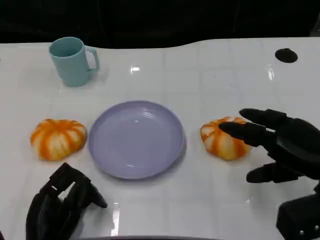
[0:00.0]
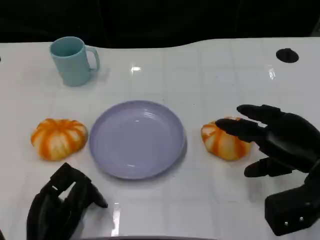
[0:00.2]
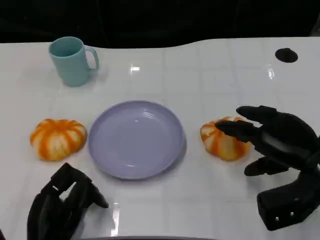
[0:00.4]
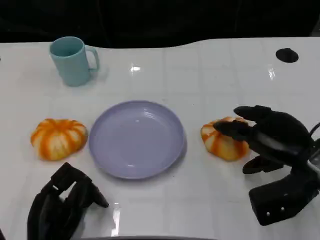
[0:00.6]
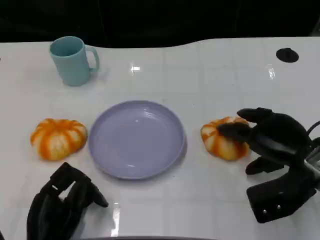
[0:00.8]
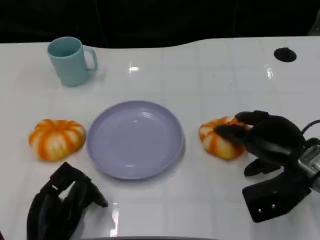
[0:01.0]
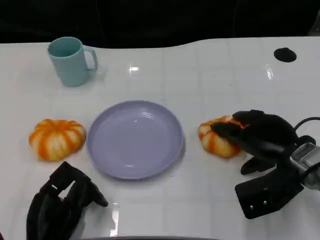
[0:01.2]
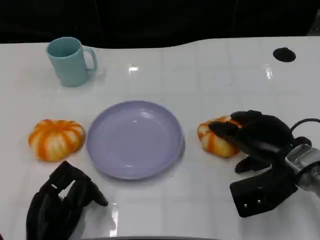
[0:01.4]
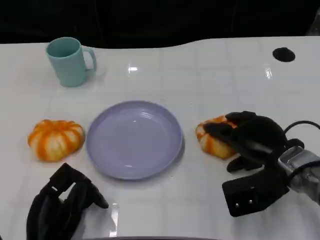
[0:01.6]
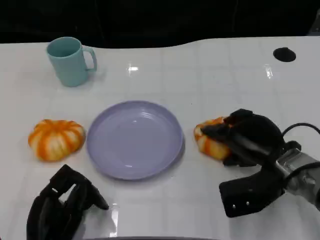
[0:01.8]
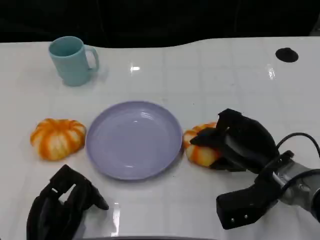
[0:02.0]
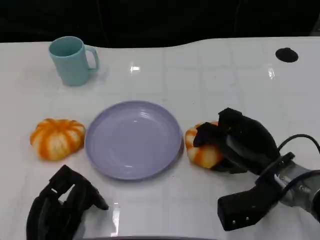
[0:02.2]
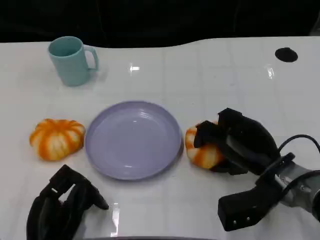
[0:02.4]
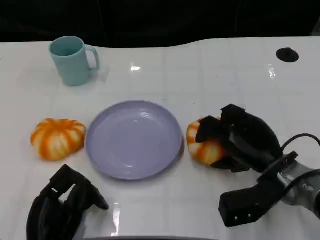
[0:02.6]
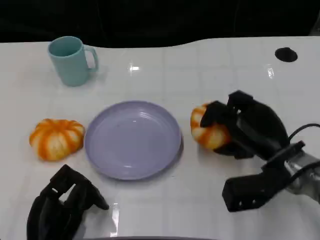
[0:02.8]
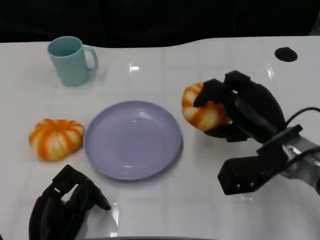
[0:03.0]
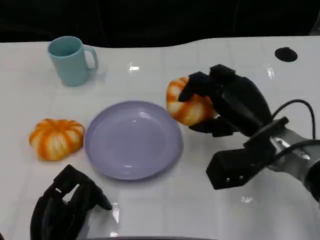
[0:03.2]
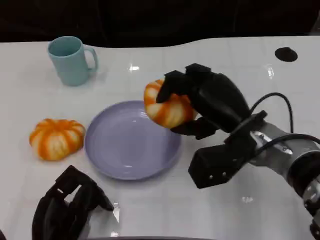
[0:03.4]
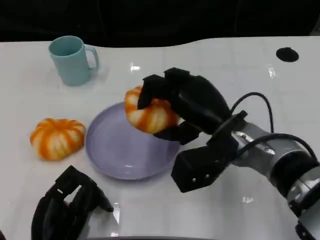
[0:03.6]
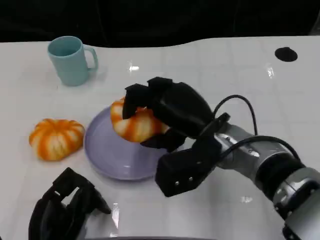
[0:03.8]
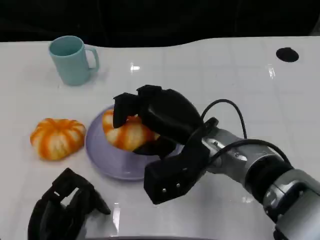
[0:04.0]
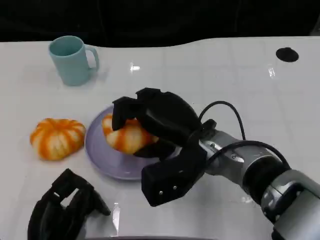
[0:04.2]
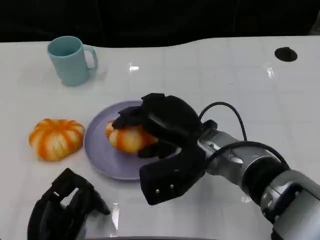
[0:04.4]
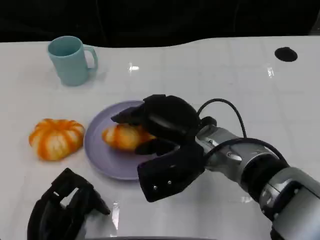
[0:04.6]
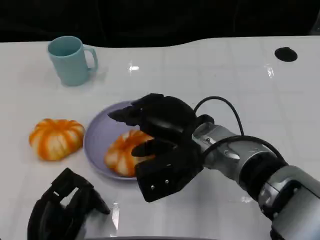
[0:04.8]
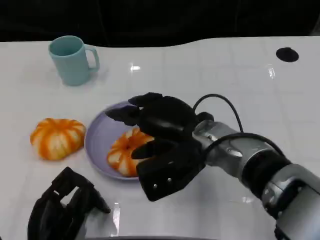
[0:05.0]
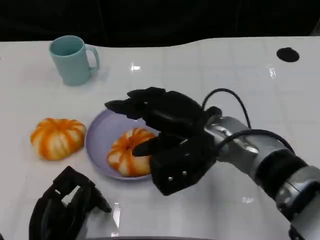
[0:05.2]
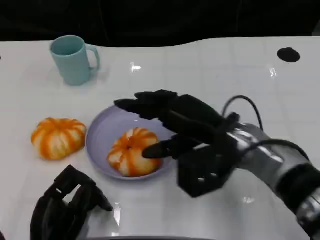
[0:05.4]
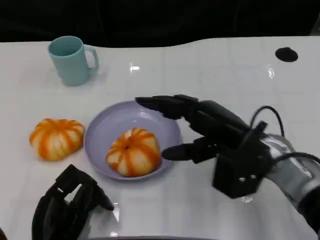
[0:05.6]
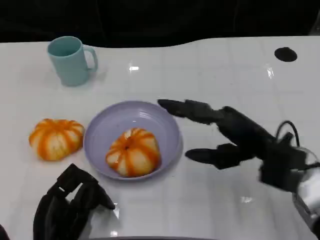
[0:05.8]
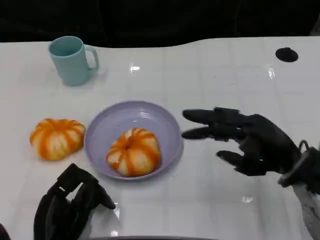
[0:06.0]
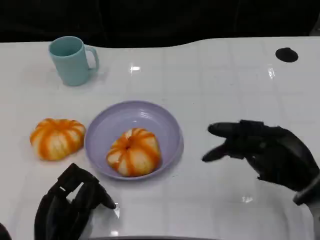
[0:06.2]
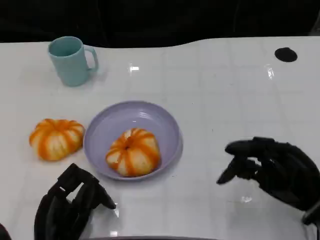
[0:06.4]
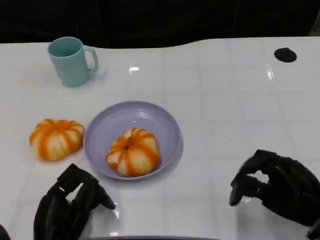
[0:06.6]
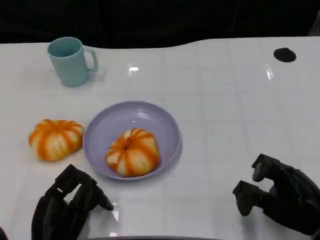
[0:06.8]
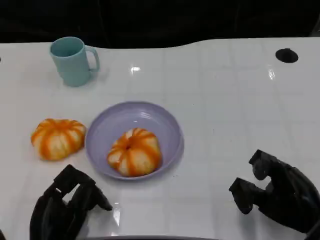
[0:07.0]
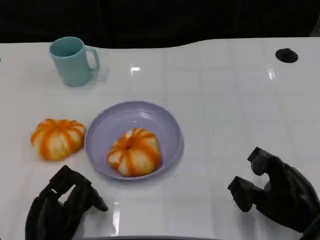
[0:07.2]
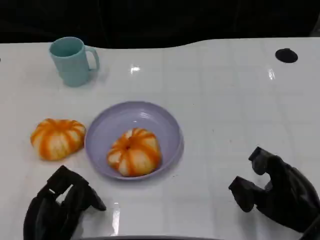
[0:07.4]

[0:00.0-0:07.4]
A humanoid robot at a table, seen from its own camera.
Task of the whole recording: Grasp the bread from the table and place it into the plate.
0.0 to 1.4 s: The right hand is displaced to the left by about 5 cm.
3.0 to 4.4 s: The right hand is displaced to the left by approximately 10 cm.
4.4 to 6.0 s: The right hand goes about 15 cm to the right.
6.0 to 7.4 s: The right hand shifts roughly 10 cm backward and downward.

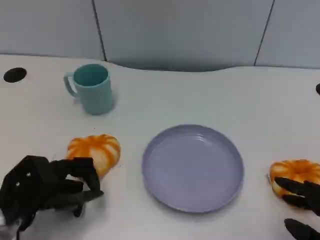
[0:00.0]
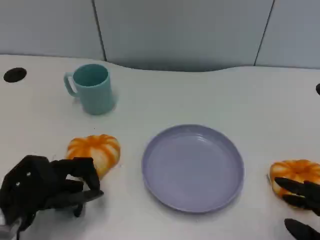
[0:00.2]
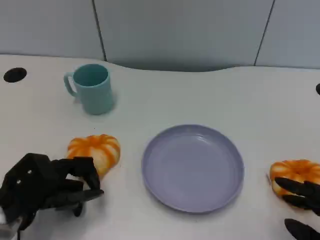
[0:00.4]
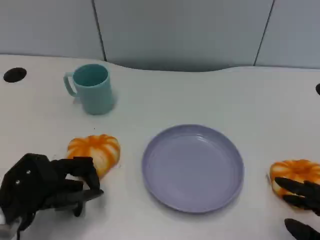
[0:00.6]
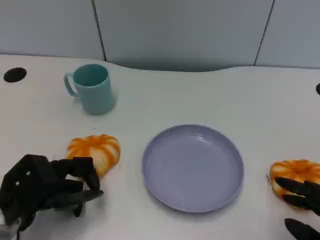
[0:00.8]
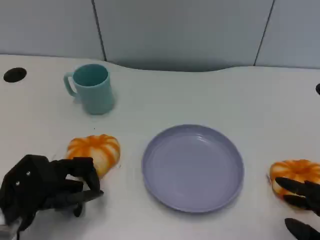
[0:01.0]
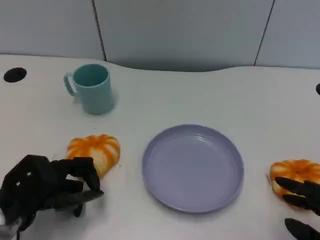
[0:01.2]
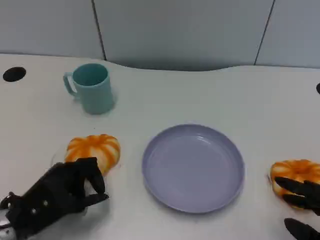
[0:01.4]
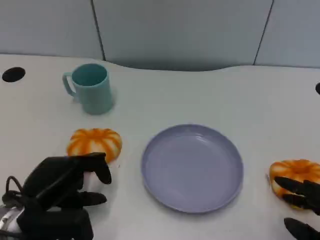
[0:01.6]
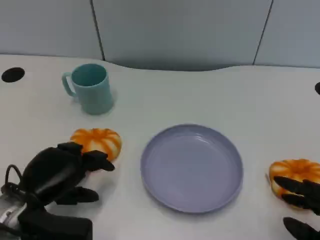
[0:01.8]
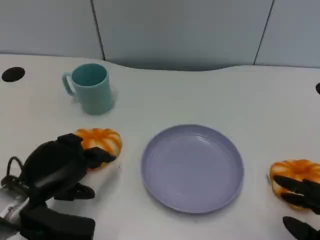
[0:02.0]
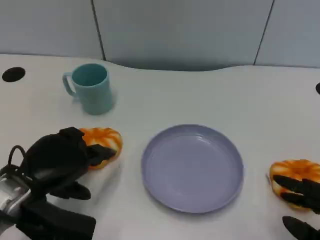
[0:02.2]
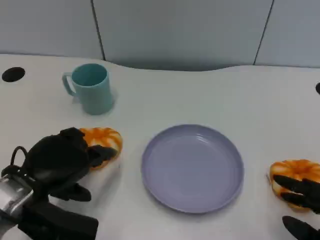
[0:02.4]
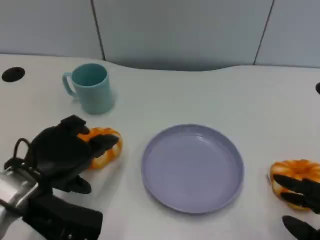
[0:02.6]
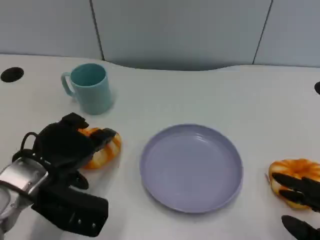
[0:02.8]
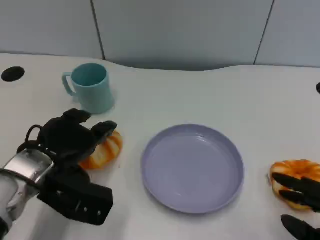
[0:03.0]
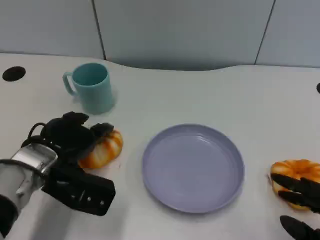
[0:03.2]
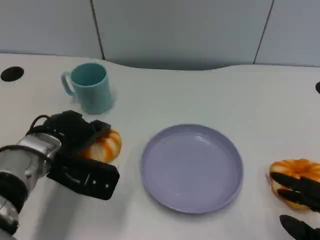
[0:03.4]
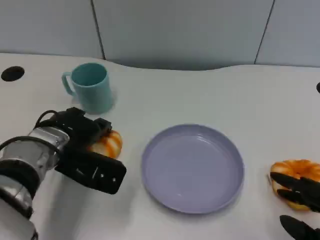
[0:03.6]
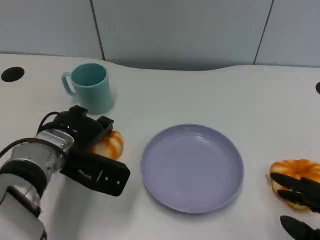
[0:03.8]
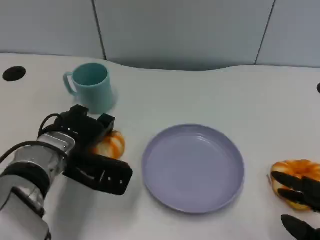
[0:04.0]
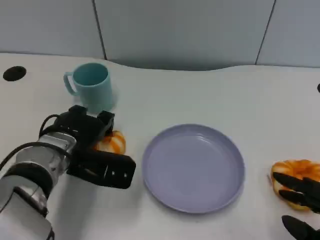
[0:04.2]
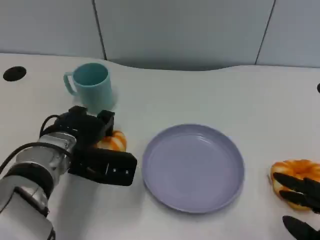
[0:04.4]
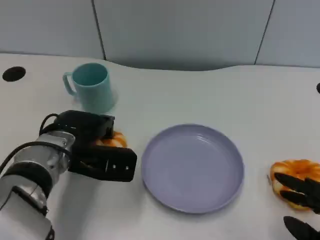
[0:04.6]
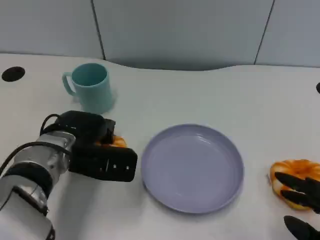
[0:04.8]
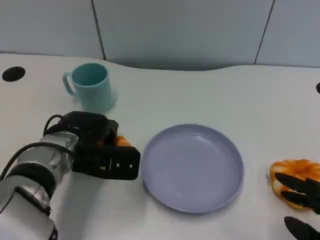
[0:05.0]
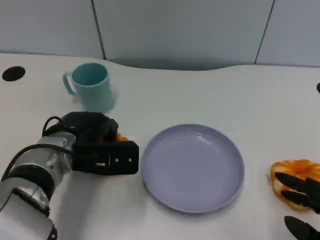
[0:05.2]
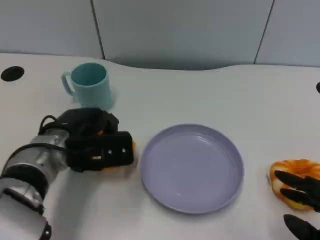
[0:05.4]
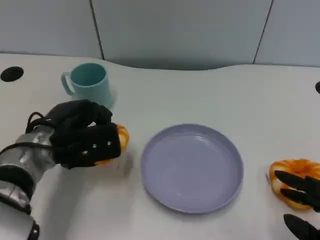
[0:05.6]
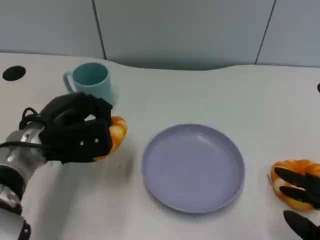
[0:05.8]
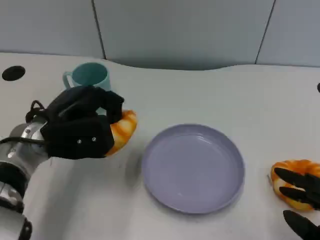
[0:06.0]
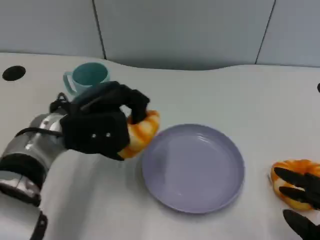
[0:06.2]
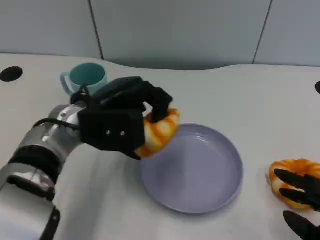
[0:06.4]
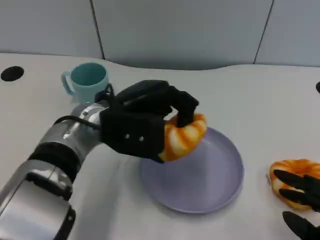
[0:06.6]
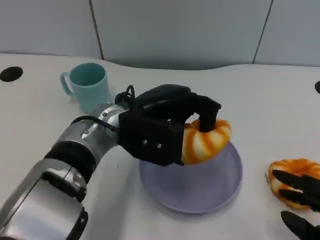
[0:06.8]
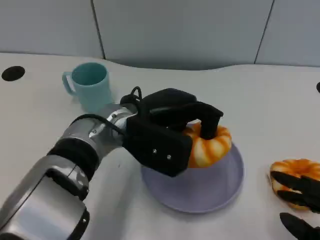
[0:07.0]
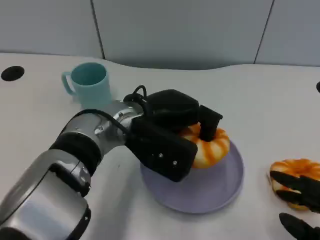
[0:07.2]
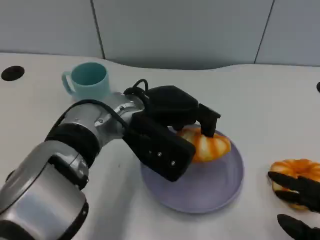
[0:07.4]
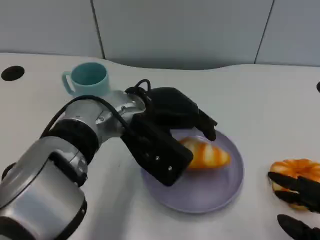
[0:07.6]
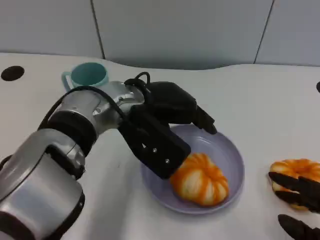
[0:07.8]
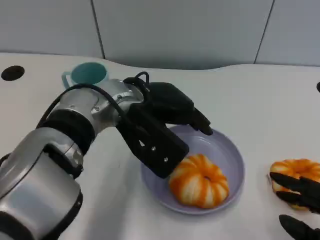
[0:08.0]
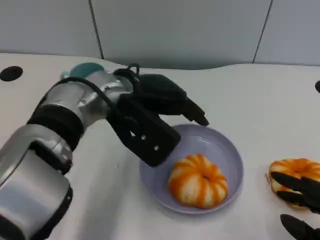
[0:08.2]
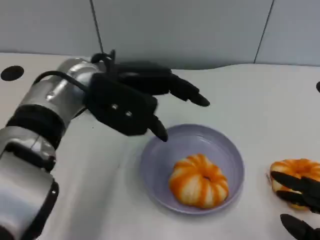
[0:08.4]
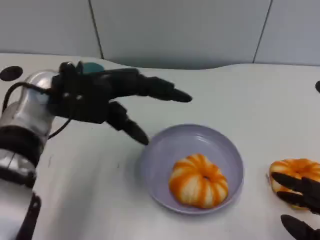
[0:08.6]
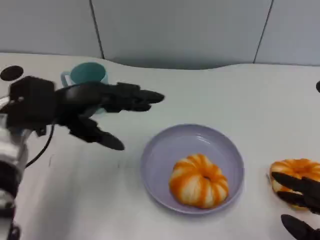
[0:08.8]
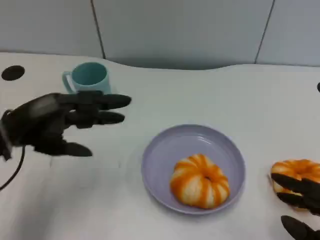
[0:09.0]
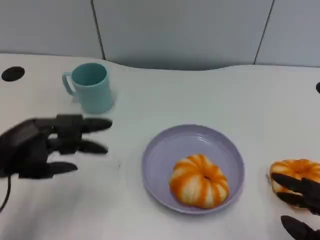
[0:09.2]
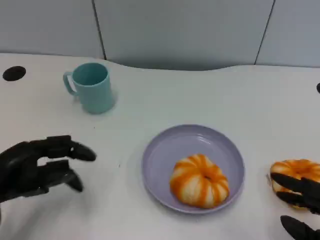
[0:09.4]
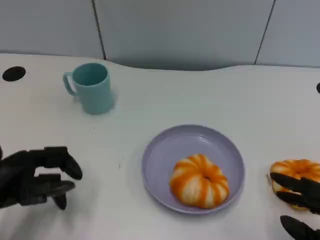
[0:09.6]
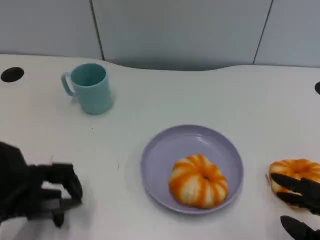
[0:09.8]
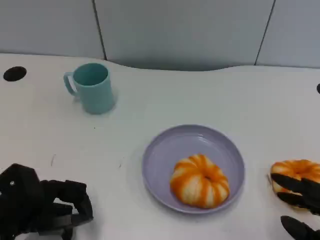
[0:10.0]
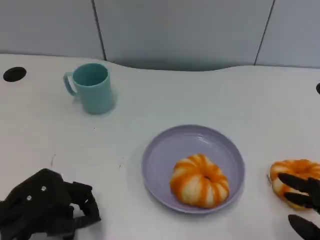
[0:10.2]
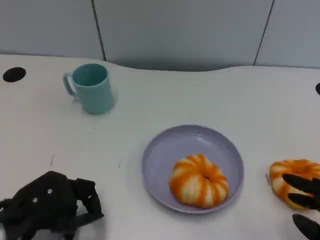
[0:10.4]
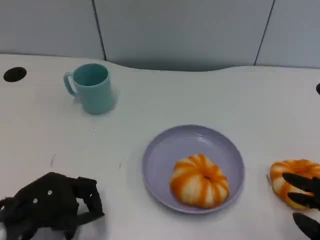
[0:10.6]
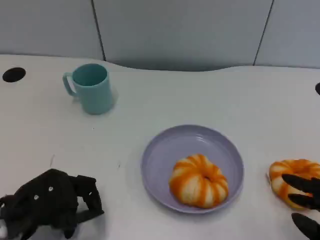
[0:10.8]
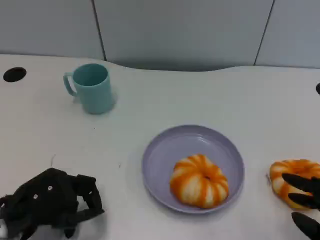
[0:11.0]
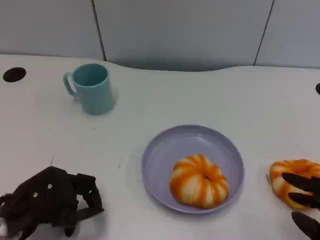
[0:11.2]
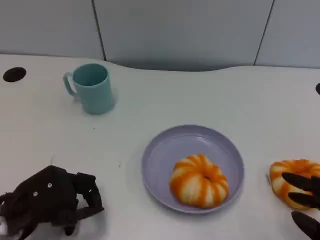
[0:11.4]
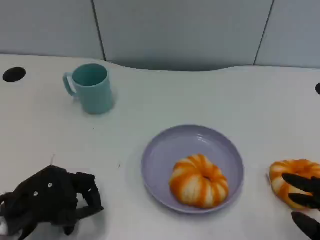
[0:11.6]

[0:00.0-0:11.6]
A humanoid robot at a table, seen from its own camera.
Task of the whole recording: Grasp the bread from the table and place it into the plate.
1.4 to 2.8 s: The left hand goes about 5 cm upward.
2.8 to 4.4 s: The left hand is displaced forward by approximately 5 cm.
5.8 to 7.2 s: The left hand heads to the right, covering roughly 15 cm.
7.2 to 8.8 s: The left hand shifts some 15 cm to the left.
8.8 to 10.2 s: The left hand goes approximately 15 cm backward and downward.
10.2 to 11.6 s: There are only small adjustments of the hands.

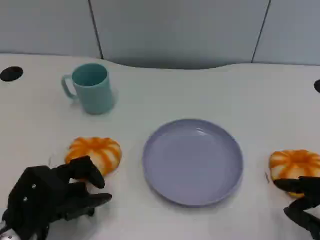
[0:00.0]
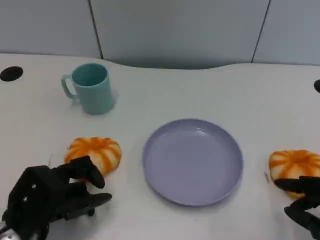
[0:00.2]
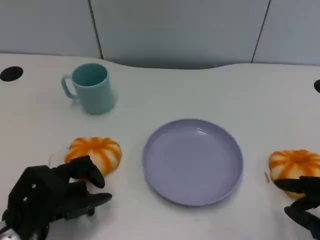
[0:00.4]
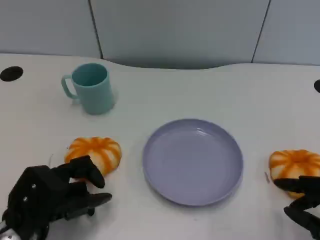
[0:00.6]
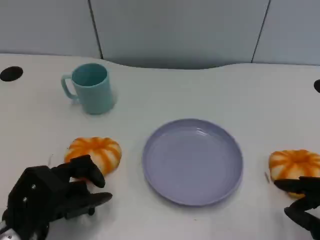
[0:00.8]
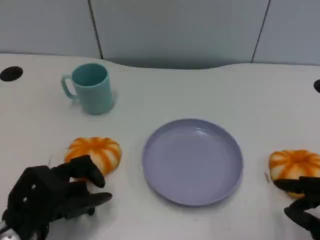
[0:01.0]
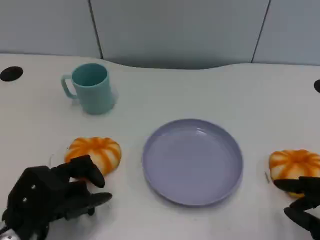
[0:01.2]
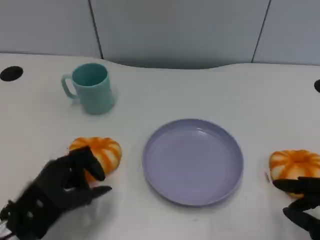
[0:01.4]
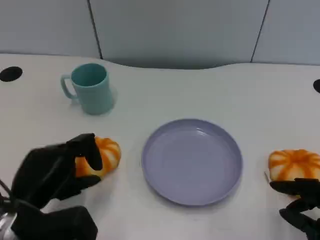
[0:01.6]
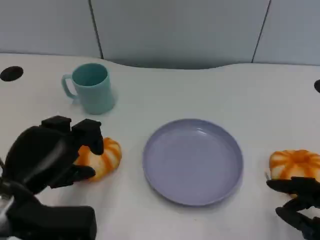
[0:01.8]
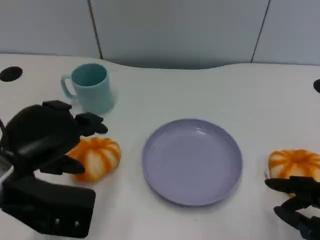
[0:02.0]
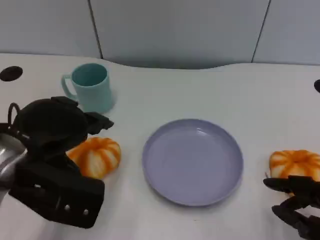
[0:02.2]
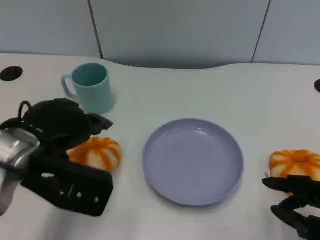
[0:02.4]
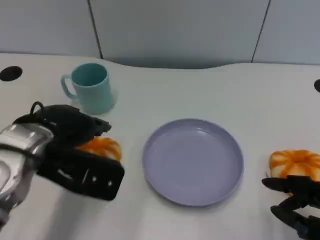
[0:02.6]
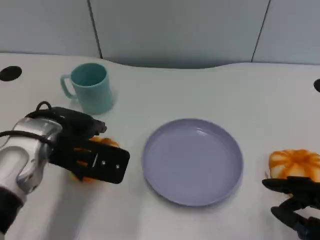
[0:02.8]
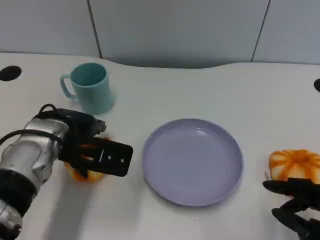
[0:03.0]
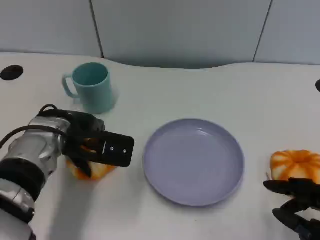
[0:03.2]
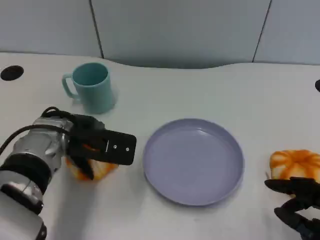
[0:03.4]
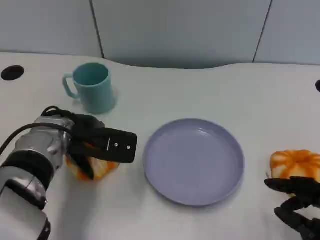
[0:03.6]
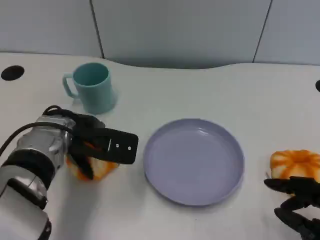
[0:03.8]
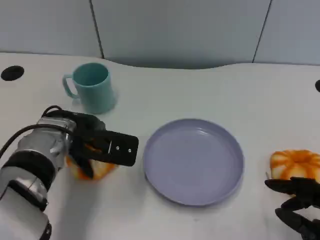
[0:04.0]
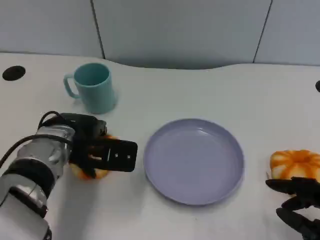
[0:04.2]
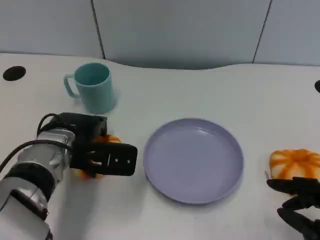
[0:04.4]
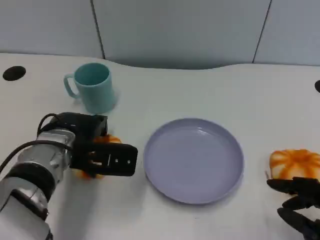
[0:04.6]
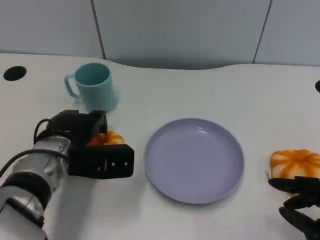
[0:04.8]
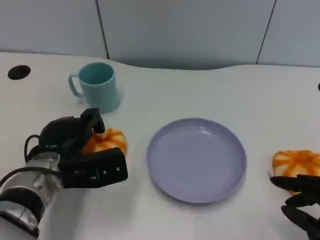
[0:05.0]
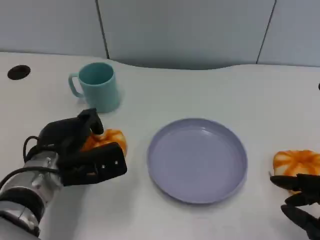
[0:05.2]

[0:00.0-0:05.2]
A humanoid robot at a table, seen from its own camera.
Task of the whole recording: Grasp the bread from the table and place it into the plate.
0.0 to 1.8 s: The left hand heads upward, covering roughly 10 cm.
1.8 to 3.4 s: The left hand is displaced forward and to the right by roughly 15 cm.
3.4 to 5.2 s: The left hand is displaced downward by some 5 cm.
